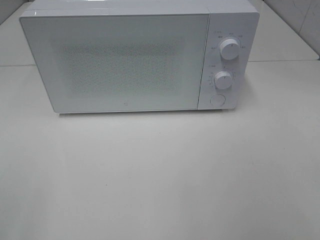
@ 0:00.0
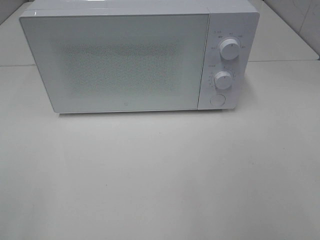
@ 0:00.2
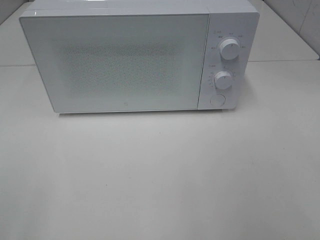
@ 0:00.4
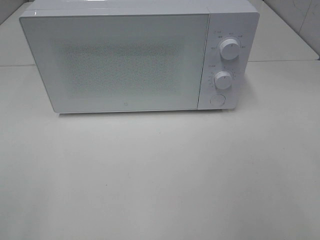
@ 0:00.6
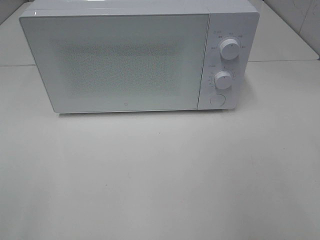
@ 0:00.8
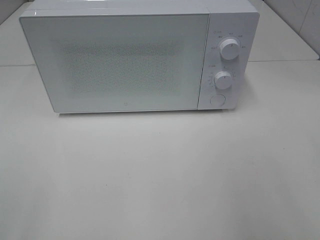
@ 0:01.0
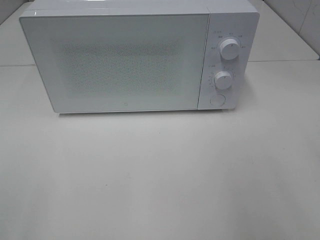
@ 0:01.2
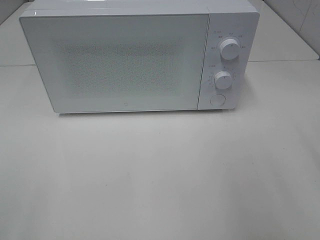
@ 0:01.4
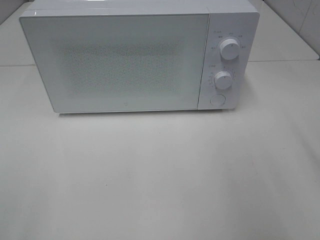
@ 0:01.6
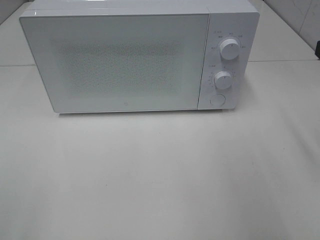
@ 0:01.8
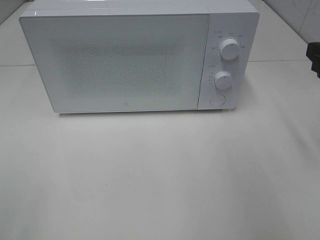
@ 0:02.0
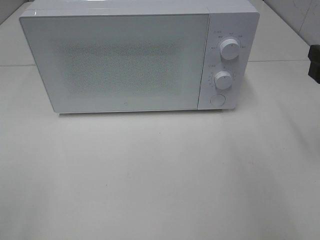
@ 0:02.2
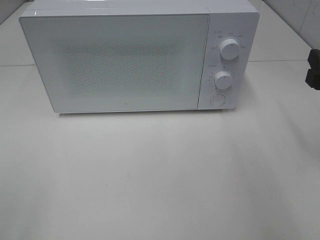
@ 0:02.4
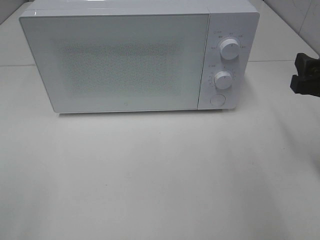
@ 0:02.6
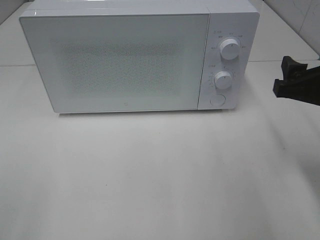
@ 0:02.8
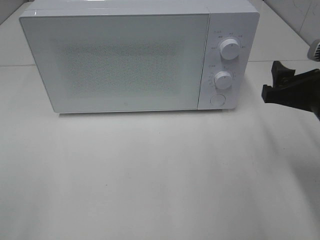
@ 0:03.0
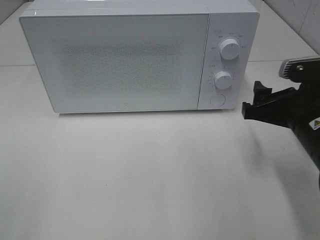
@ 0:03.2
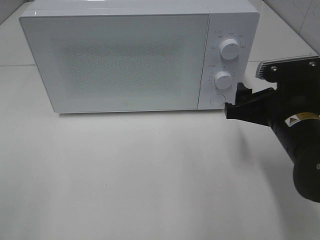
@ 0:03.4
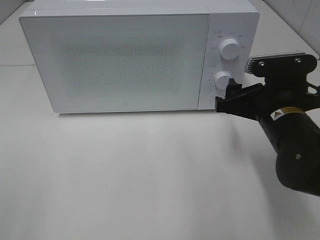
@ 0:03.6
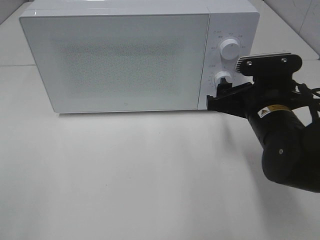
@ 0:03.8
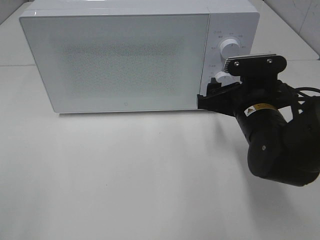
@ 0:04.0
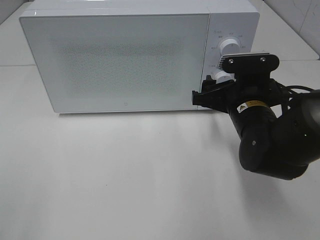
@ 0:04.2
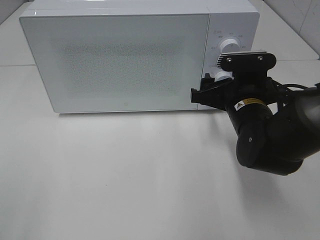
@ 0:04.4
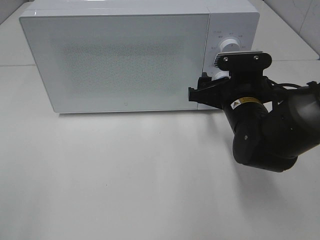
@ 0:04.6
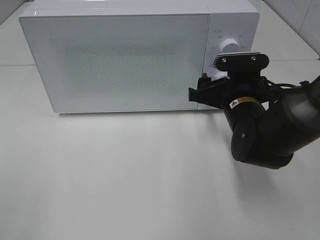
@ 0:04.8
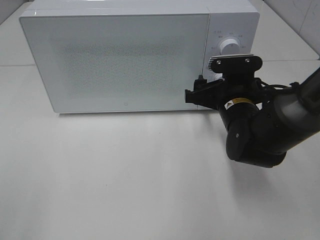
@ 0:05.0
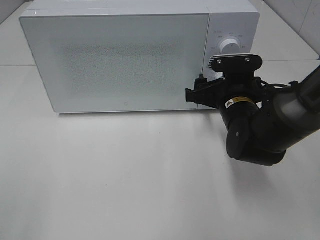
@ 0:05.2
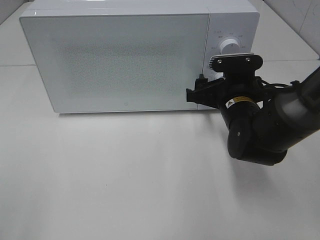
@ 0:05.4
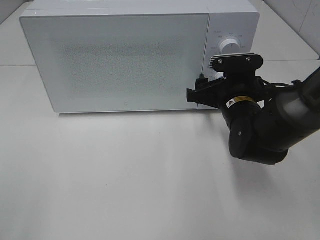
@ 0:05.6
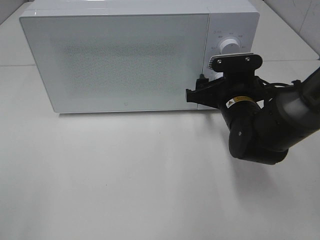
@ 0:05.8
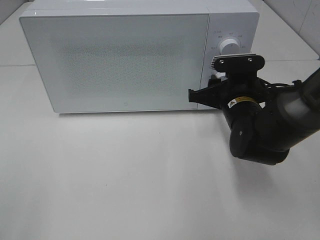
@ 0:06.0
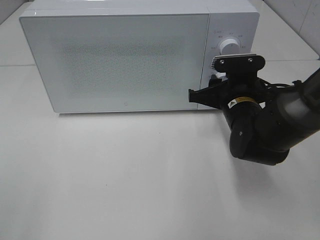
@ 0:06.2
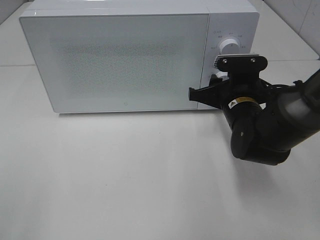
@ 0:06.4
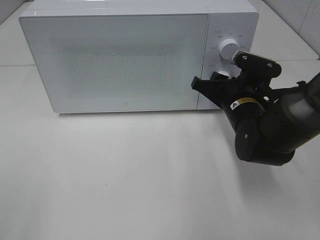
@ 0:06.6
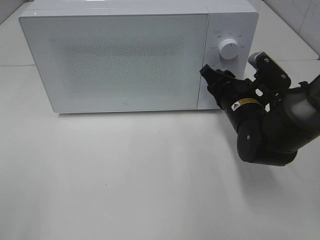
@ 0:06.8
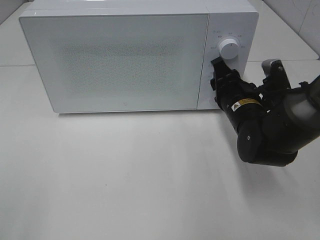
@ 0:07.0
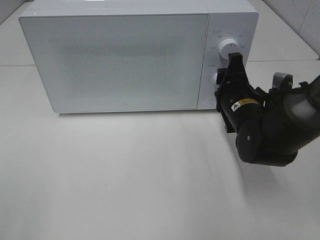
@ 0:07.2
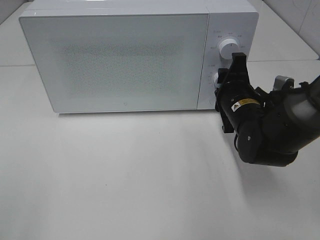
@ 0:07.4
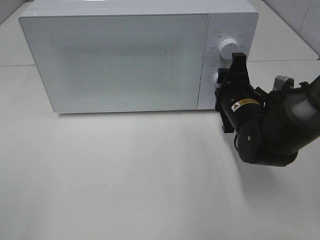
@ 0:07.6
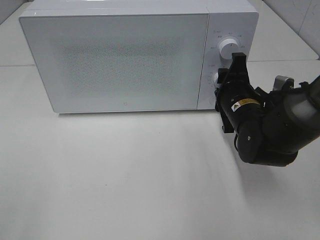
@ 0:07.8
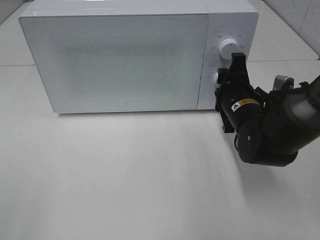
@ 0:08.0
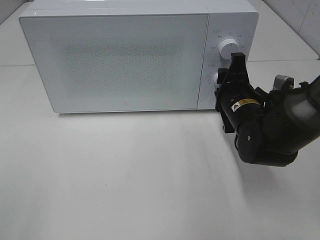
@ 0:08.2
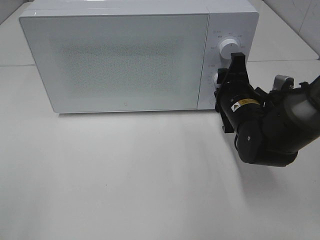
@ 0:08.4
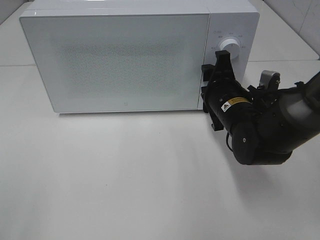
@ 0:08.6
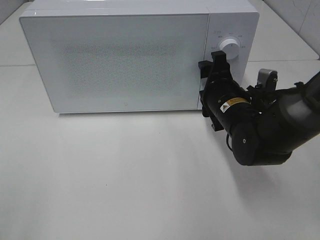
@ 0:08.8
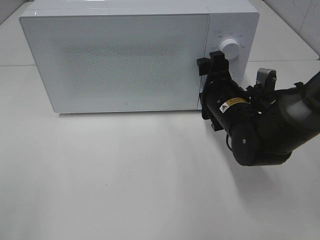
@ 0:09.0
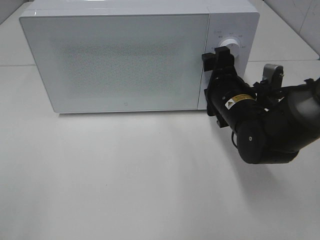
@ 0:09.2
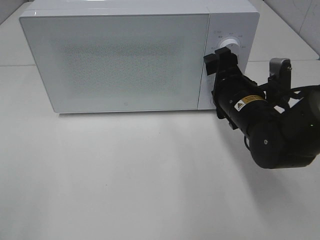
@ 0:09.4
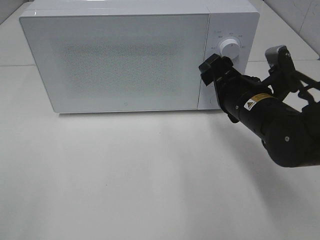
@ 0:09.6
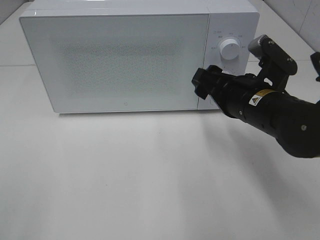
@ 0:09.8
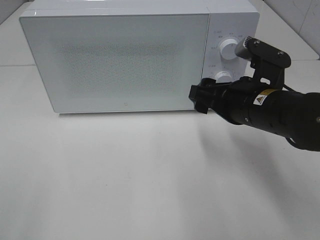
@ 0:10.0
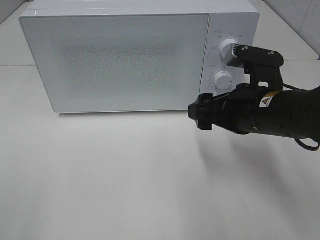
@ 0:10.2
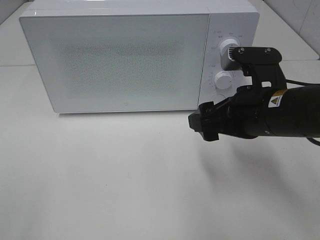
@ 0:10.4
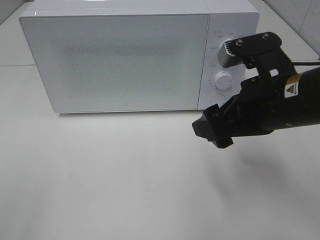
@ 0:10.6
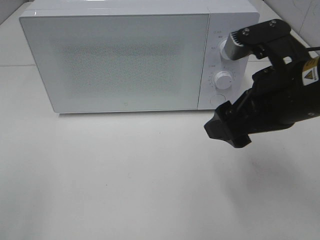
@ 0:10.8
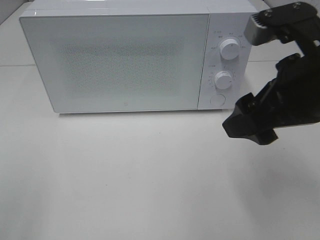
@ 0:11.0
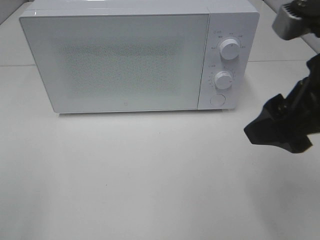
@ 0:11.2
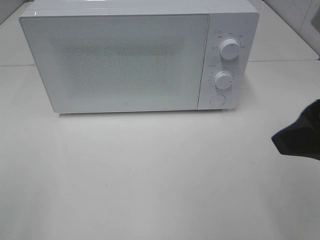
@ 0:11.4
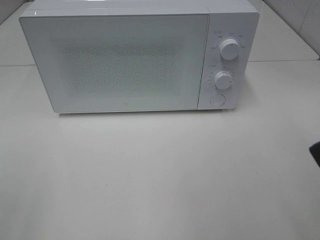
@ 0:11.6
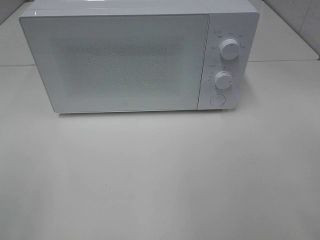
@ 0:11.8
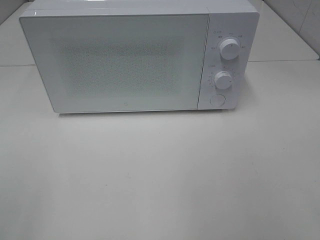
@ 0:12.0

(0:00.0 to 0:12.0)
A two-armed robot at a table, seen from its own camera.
Task of the whole recording: Heat the burger.
Step, 0:00.0 - 0:08.4: Right hand: twist timer button.
0:01.6 - 0:03.0: The right gripper shifts approximately 10 cm downward and to the left.
0:03.0 - 0:04.4: The right gripper travels to the left, forward and downward by roughly 15 cm.
0:04.4 - 0:06.0: The right gripper closes.
0:07.6 - 0:09.0: The right gripper opens its fingers.
0:09.0 - 0:10.4: The right gripper travels backward and upward by about 10 cm.
0:10.4 - 0:12.0: The right gripper travels backward, upward and to the right by some 25 cm.

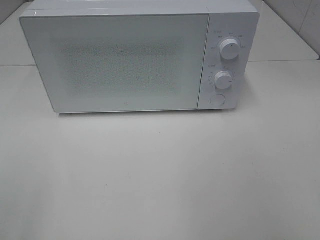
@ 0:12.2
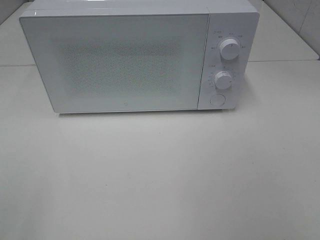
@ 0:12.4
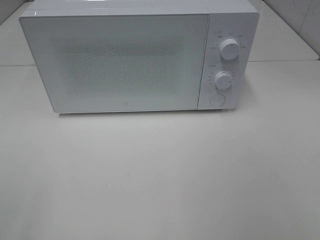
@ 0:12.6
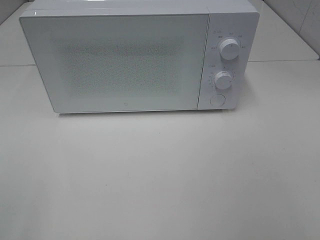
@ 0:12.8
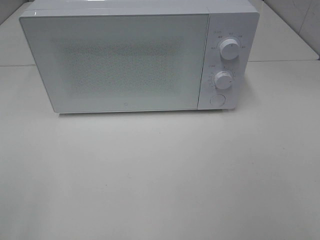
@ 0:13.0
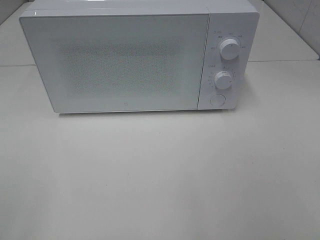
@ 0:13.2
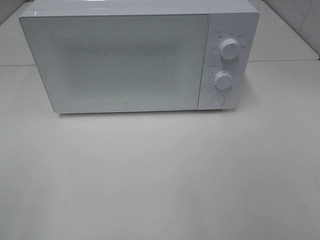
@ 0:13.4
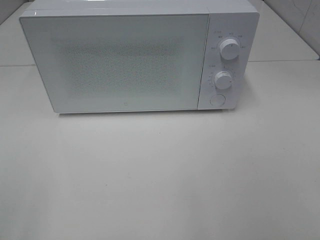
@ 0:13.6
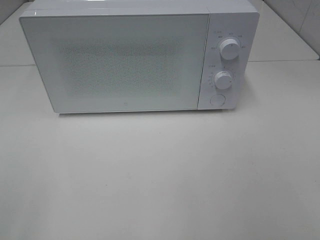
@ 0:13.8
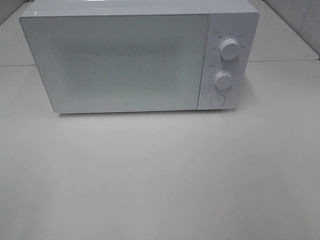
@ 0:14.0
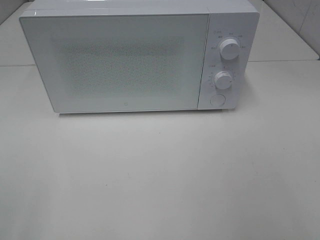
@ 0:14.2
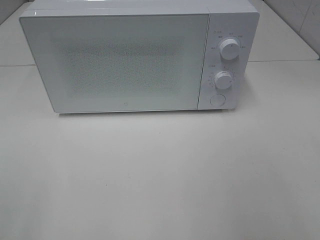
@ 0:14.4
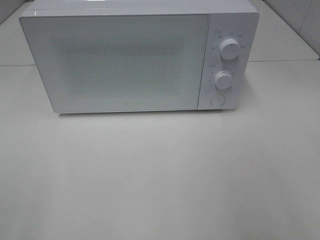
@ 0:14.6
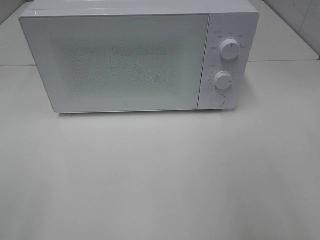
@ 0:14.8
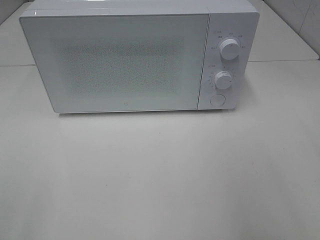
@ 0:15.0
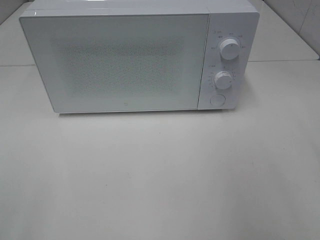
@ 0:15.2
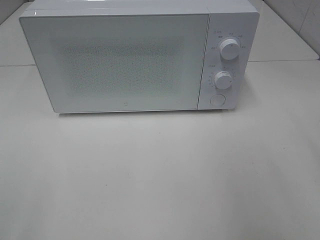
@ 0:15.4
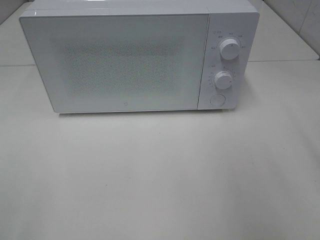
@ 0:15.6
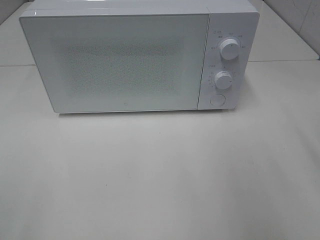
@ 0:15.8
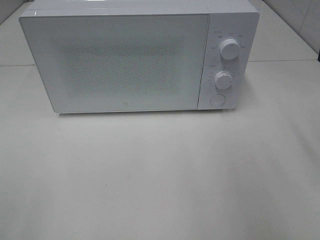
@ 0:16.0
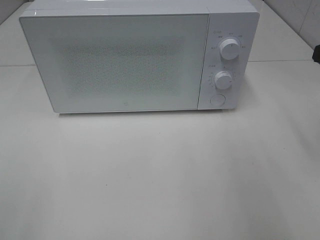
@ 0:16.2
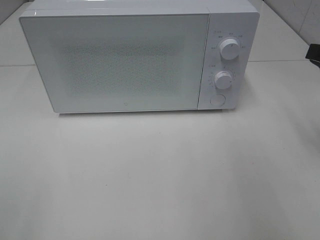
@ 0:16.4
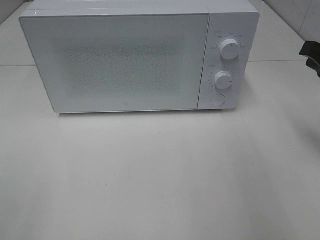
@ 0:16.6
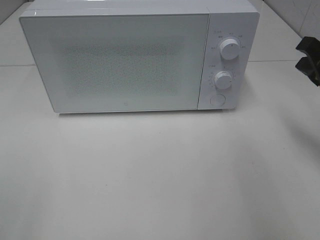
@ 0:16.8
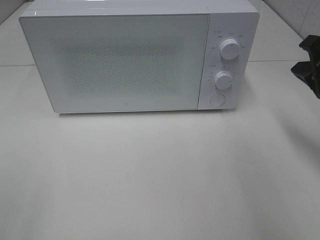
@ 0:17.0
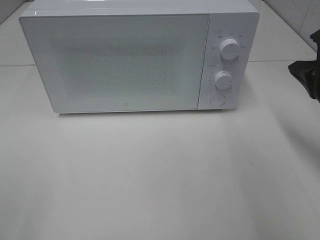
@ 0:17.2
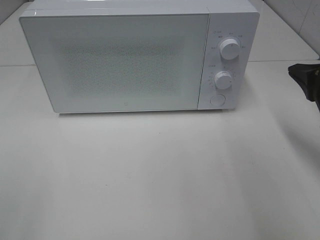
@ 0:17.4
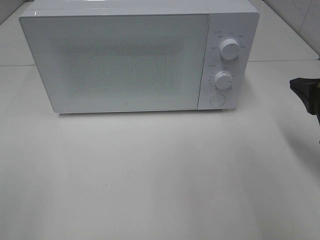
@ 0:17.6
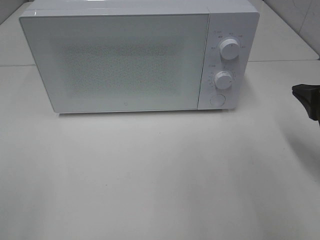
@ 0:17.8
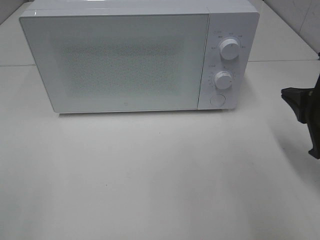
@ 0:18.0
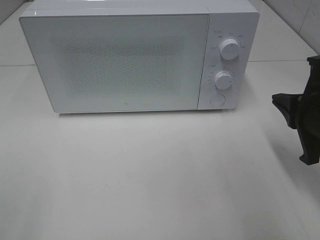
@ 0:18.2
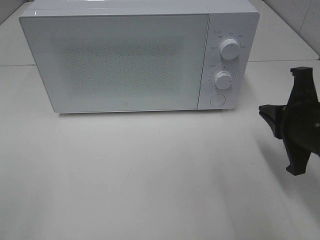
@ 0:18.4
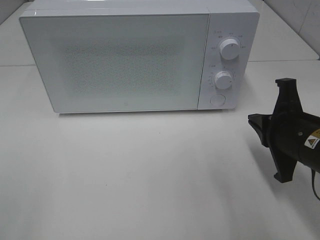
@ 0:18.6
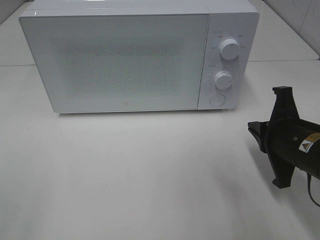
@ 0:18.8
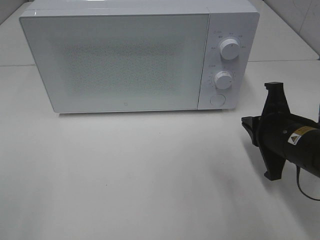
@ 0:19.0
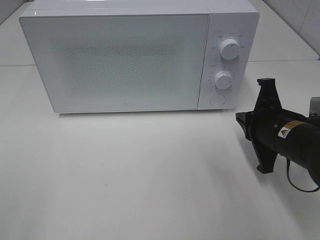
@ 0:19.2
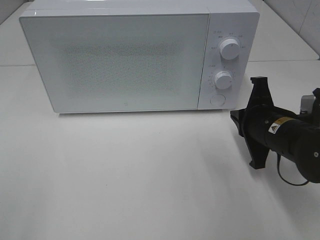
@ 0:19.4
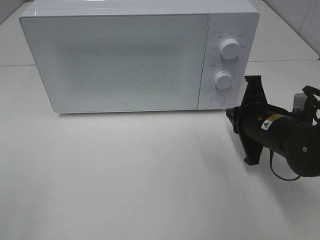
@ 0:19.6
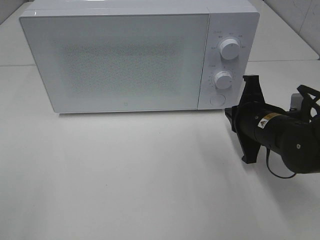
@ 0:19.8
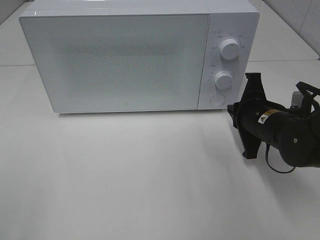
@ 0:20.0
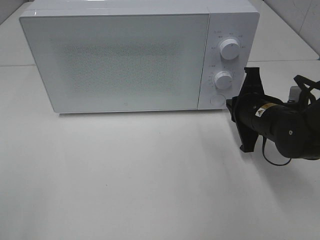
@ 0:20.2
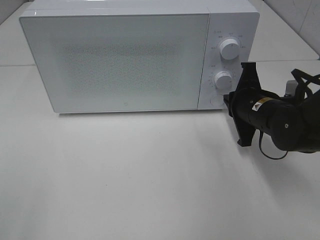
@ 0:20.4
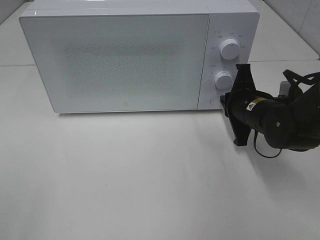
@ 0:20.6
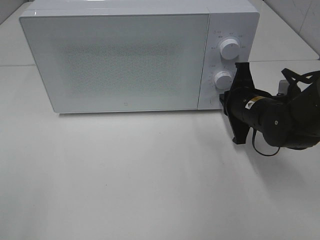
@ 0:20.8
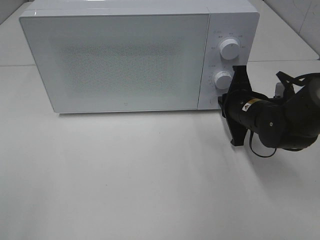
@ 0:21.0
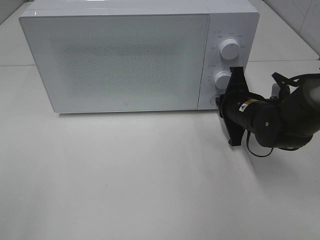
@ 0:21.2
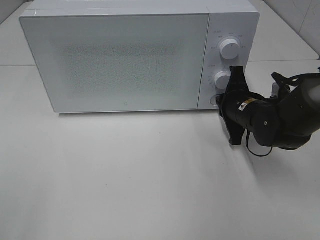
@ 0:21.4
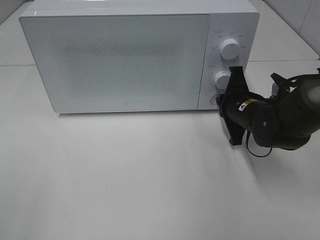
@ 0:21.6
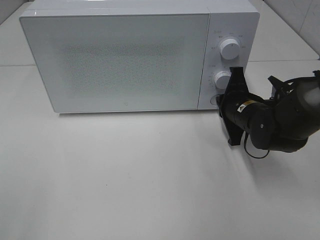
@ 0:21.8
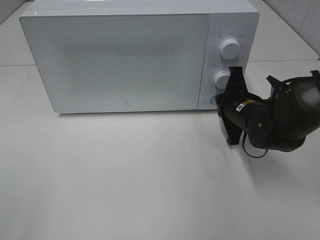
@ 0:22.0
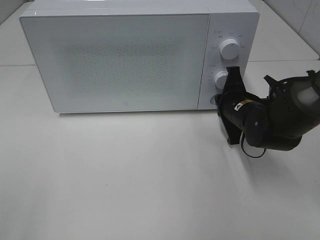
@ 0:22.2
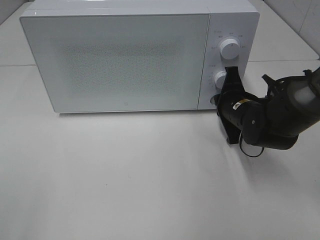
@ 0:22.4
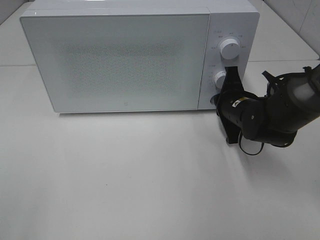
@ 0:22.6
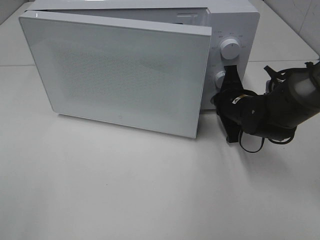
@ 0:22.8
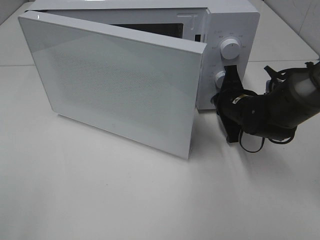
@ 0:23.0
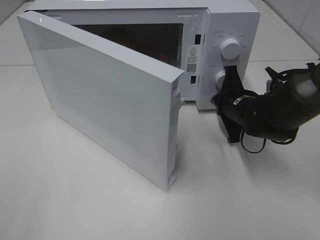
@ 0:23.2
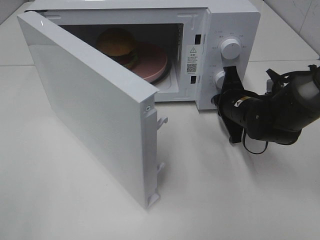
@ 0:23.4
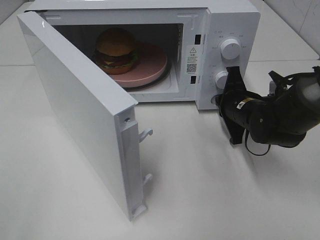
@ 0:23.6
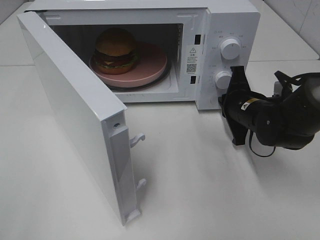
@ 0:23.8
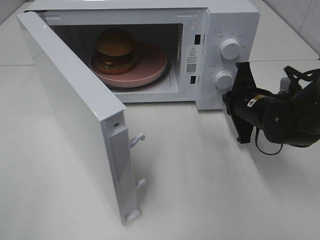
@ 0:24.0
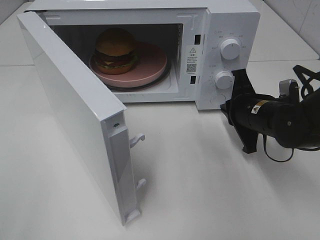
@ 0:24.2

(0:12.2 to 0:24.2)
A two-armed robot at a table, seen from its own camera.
Task of the whole recording: Heat the burger.
Step, 0:12.2 - 0:23.8: Right hand: press the switch.
0:15.2 - 0:16.6: The right gripper shifts approximately 10 cm forward and downward, and closes its fingers.
0:16.6 - 0:18.2: The right gripper moves downward, about 5 cm.
0:18.2 - 0:19.8: The right gripper shifts approximately 10 cm downward, forward and to the left.
0:19.8 - 0:21.2: The right gripper shifts about 5 cm forward.
0:21.2 - 0:22.6: There are only small adjustments of the grippers.
